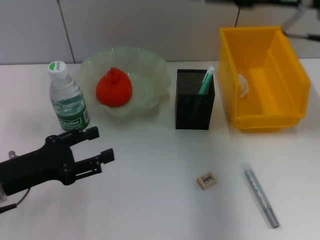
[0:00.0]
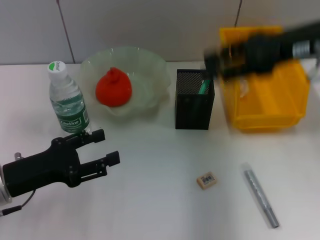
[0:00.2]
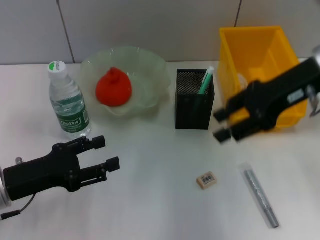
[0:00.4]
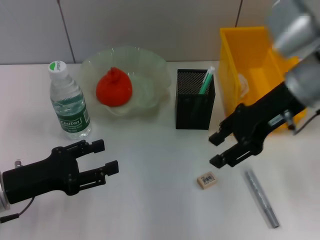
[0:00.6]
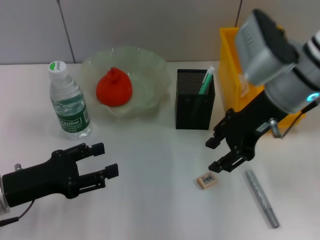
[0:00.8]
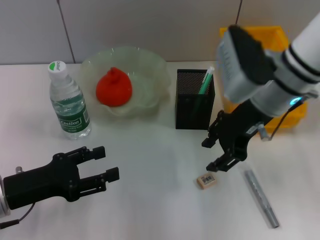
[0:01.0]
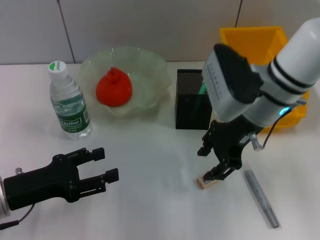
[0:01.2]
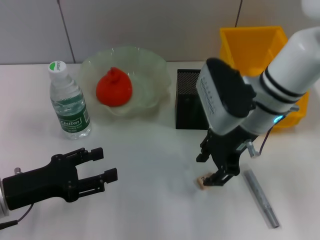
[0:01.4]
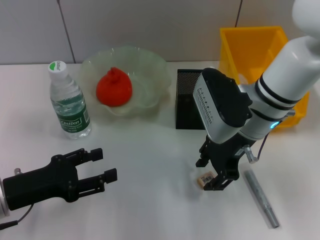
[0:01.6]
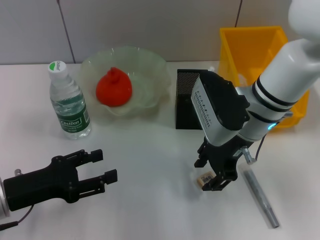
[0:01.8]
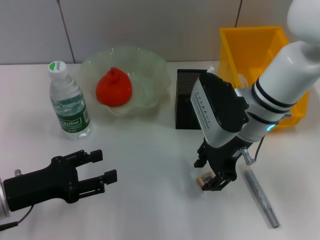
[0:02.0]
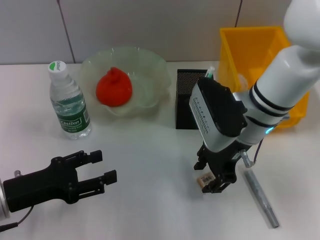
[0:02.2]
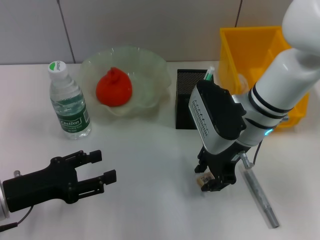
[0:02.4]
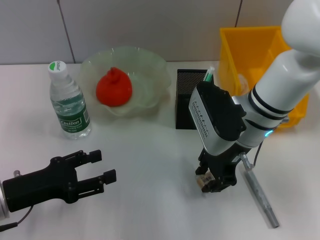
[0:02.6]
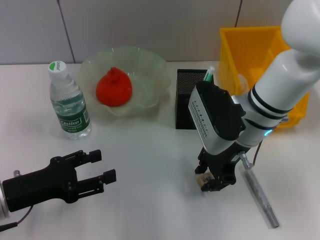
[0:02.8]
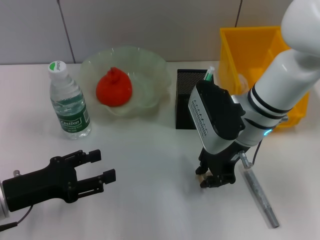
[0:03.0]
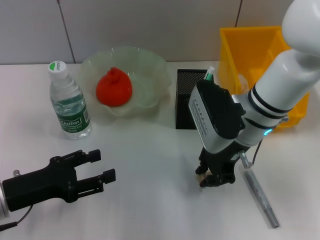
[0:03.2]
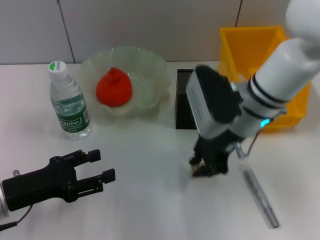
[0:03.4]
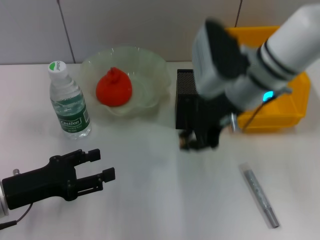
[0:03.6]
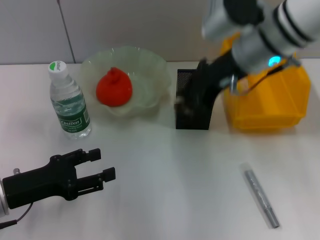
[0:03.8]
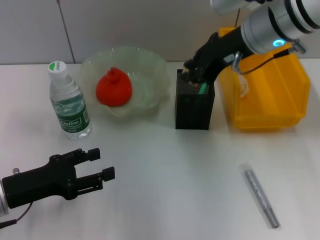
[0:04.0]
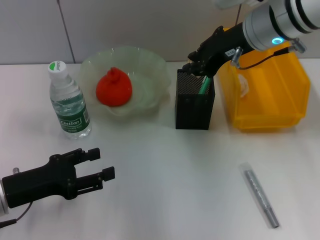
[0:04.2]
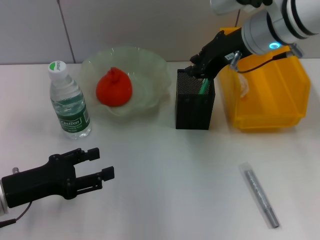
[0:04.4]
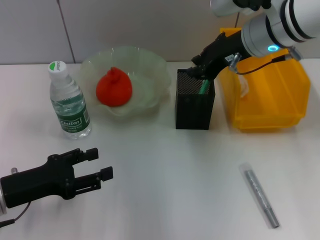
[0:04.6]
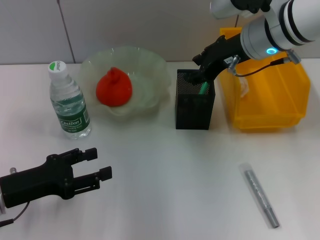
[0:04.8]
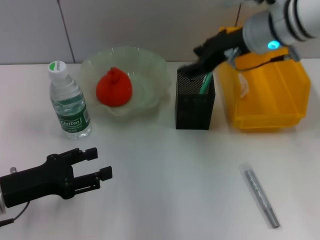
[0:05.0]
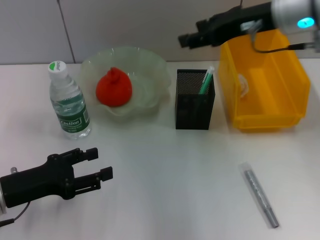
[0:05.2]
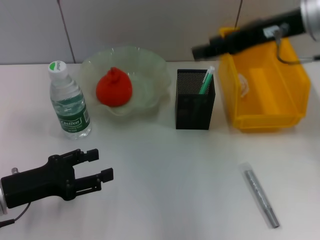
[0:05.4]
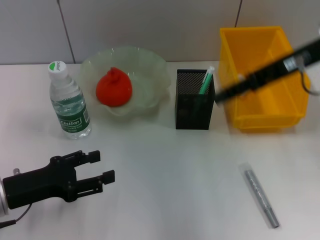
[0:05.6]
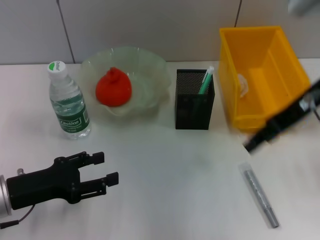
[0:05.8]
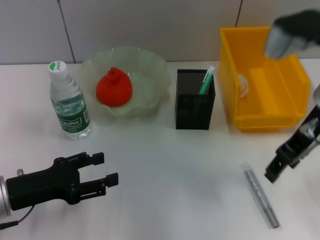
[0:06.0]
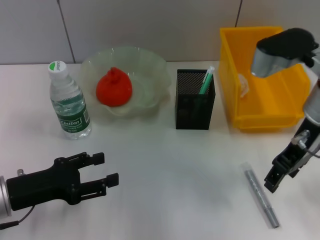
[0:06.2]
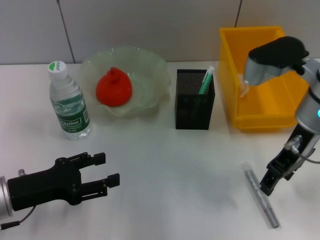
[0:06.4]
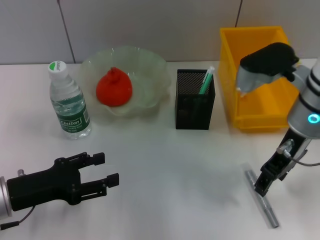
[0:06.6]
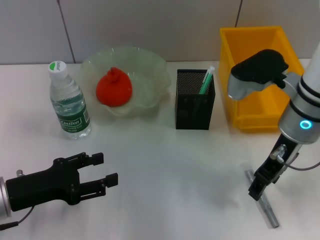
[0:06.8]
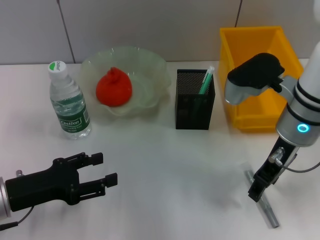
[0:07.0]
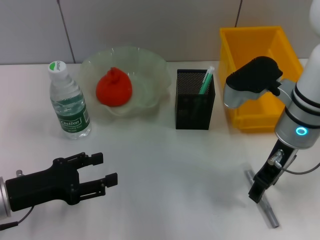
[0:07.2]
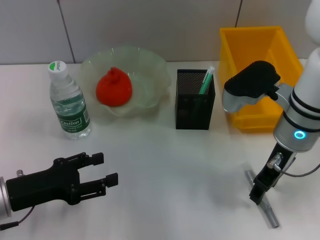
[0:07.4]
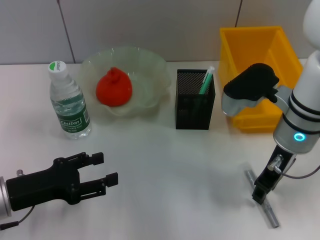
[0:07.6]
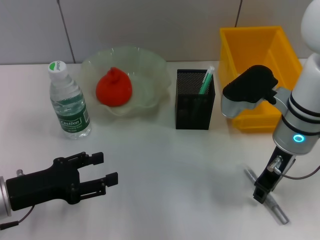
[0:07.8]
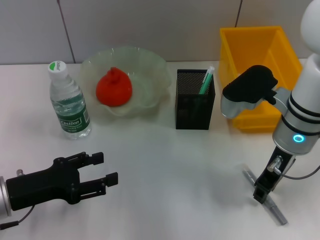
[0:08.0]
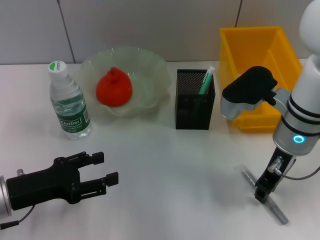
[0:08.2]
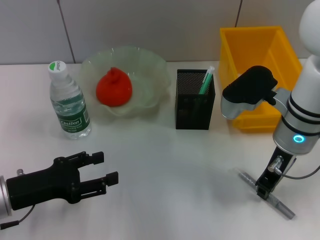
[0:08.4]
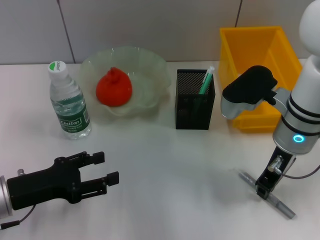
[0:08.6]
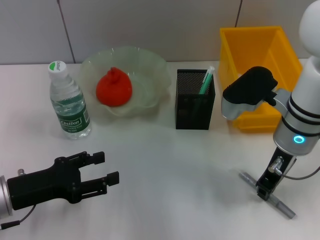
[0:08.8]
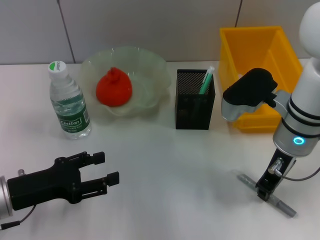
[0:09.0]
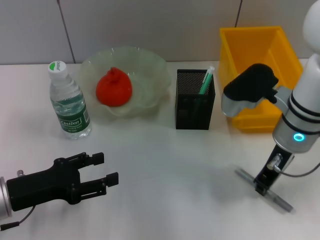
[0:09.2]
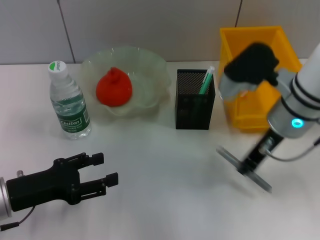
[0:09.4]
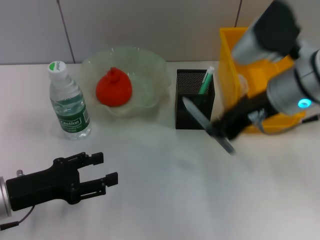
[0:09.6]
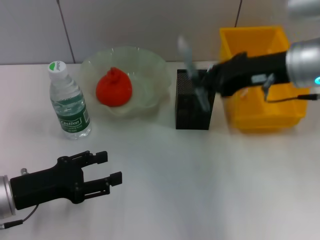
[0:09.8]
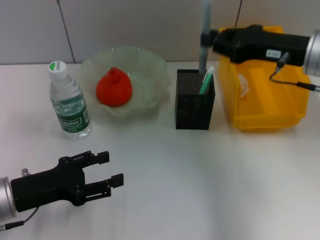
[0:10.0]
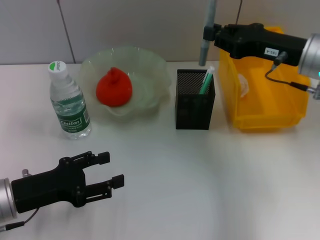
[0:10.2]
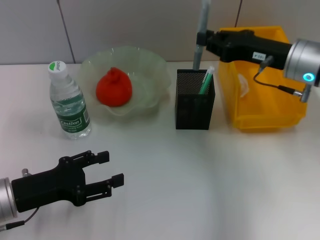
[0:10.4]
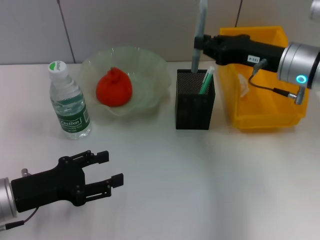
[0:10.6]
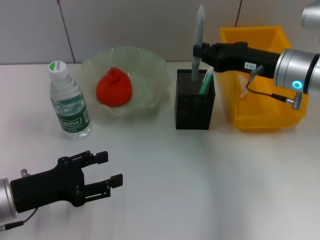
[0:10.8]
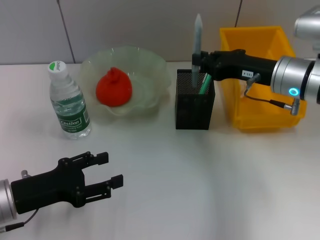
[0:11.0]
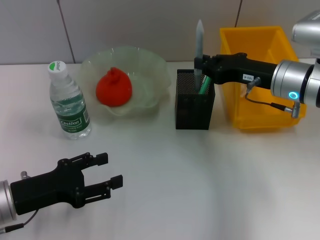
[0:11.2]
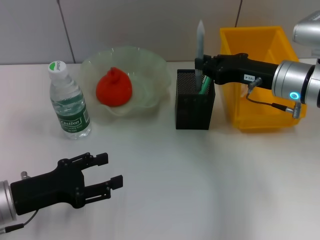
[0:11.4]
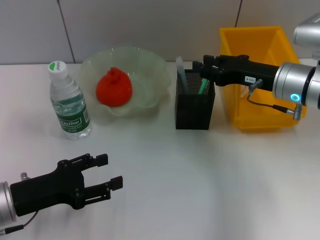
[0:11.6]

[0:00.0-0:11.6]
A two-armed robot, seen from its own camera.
Step, 0:00.0 to 0:03.0: Grab the eraser with the right hand.
Step, 0:03.2 to 0:04.6: Put the eraser into the pen holder with the right hand.
Step, 0:04.8 to 0:09.0: Grab the gray glue with the right hand.
Step, 0:09.2 to 0:11.6: Place the gray glue into the pen holder with the right hand.
0:00.0 to 0:01.4: The right gripper heads downward and to the left, covering roughly 15 cm.
0:01.4 to 0:02.8: The grippers make only small movements.
0:02.8 to 0:04.4: The right gripper travels upward and forward by approximately 10 cm.
0:04.4 to 0:05.8: The right gripper goes some 10 cm to the right and backward, and opens its fingers.
0:05.8 to 0:07.2: The right gripper travels downward by some 10 cm.
0:07.2 to 0:08.8: The right gripper closes up.
0:08.8 to 0:10.2: The right gripper moves to the right, some 5 cm.
0:10.2 to 0:11.6: The right gripper changes place by approximately 5 cm.

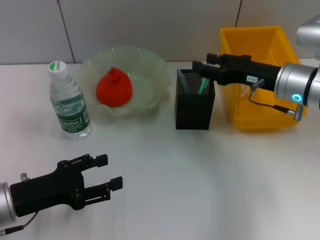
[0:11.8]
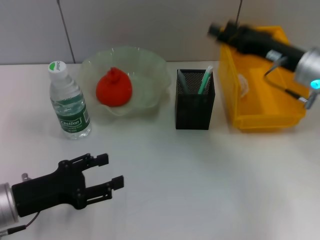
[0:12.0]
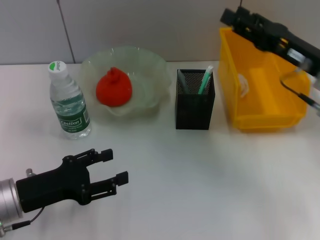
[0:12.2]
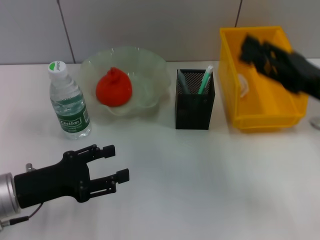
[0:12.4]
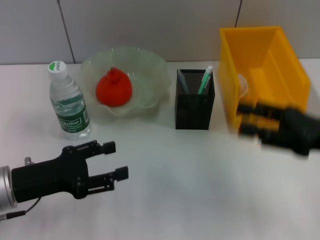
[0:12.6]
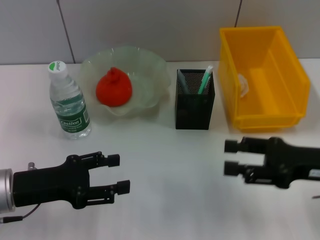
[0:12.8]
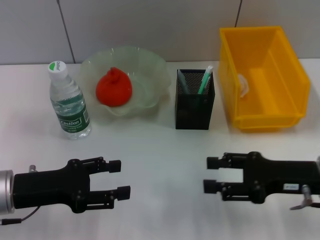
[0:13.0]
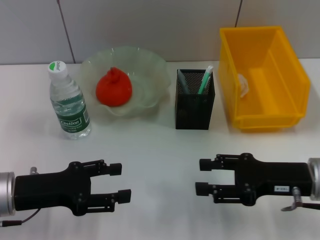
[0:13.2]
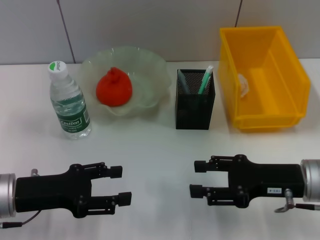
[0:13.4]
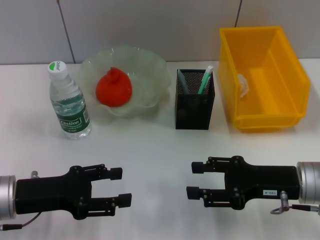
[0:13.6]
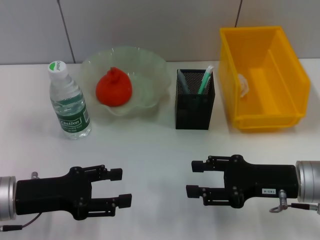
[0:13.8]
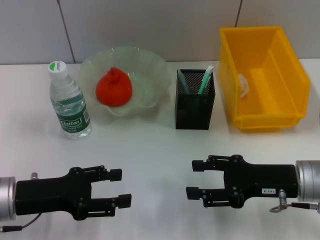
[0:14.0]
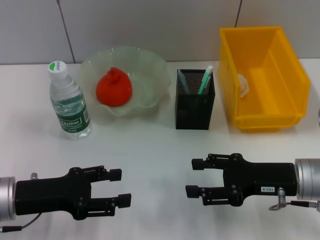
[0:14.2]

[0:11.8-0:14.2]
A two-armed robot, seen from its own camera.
0:11.8 to 0:13.0: The right gripper goes some 10 cm backward, and opens up.
0:13.0 to 0:14.2: The grippers make only small movements.
